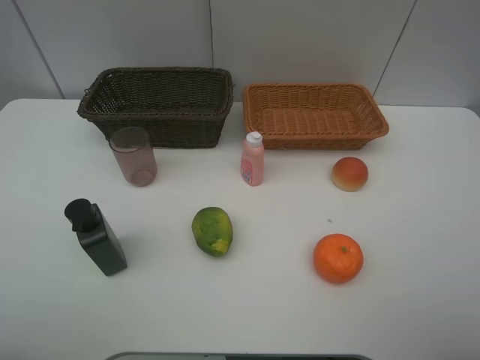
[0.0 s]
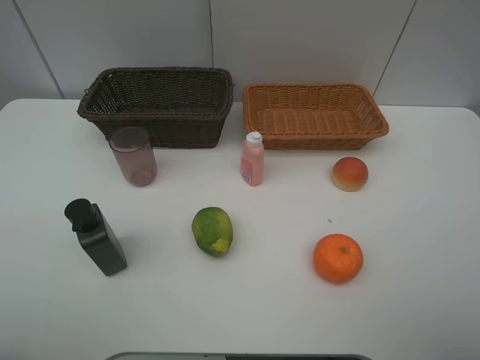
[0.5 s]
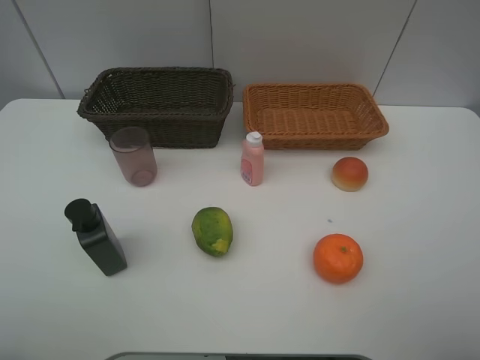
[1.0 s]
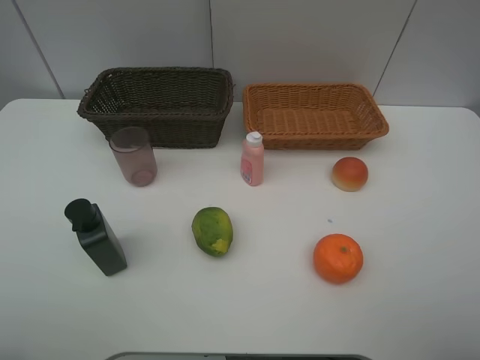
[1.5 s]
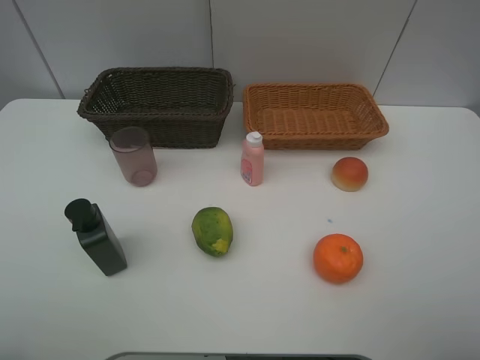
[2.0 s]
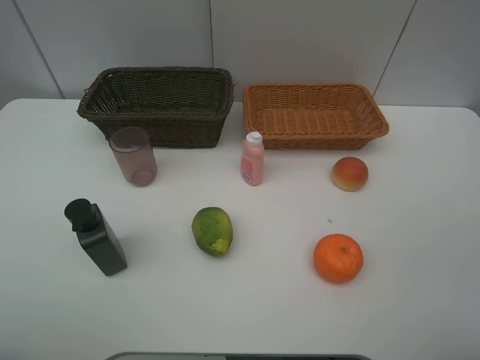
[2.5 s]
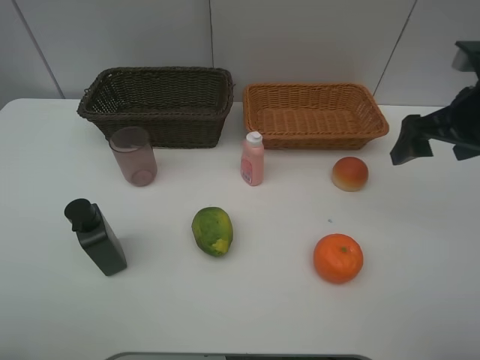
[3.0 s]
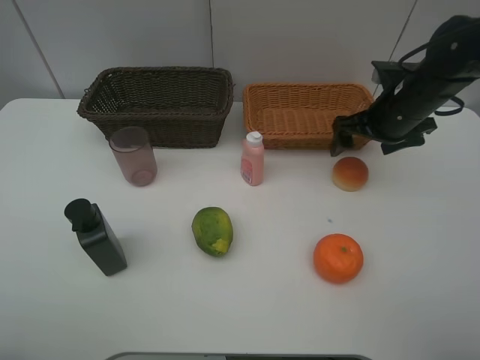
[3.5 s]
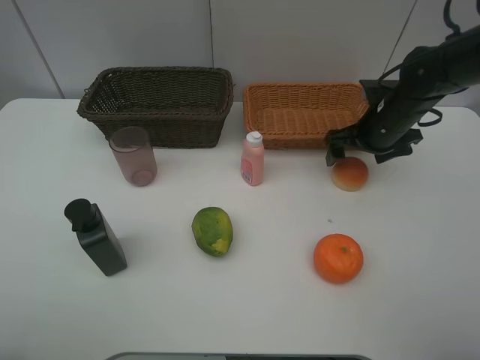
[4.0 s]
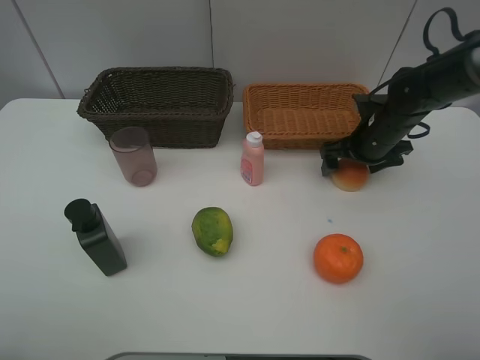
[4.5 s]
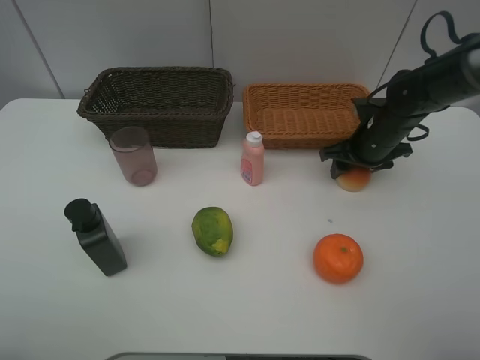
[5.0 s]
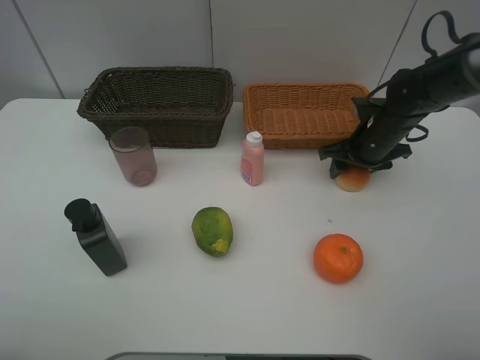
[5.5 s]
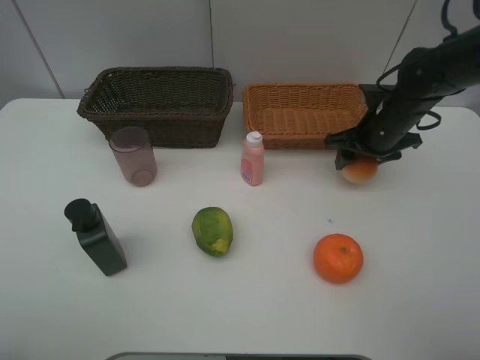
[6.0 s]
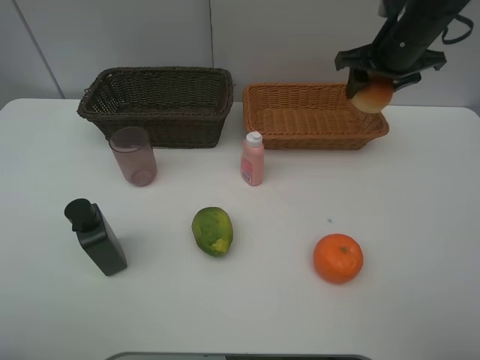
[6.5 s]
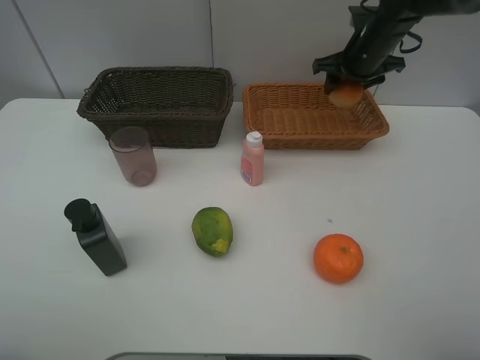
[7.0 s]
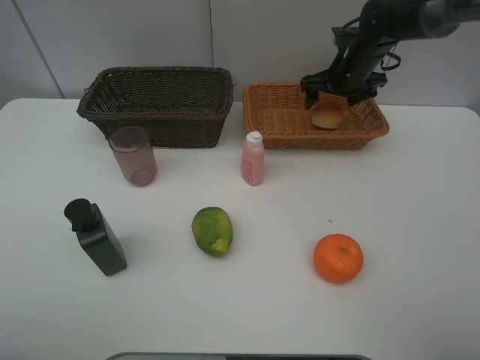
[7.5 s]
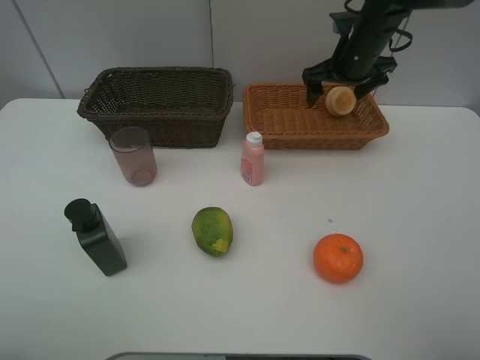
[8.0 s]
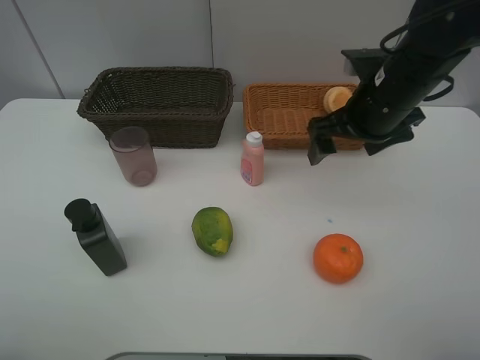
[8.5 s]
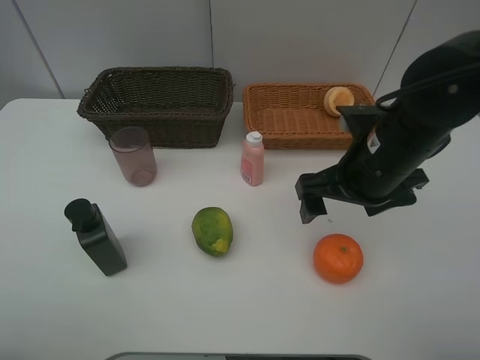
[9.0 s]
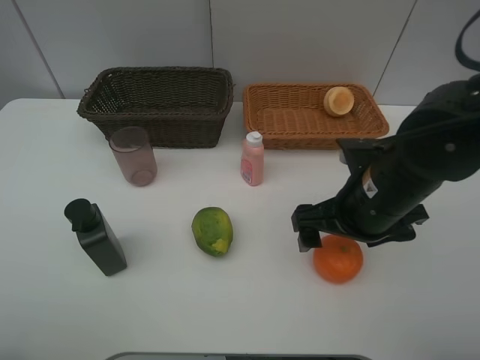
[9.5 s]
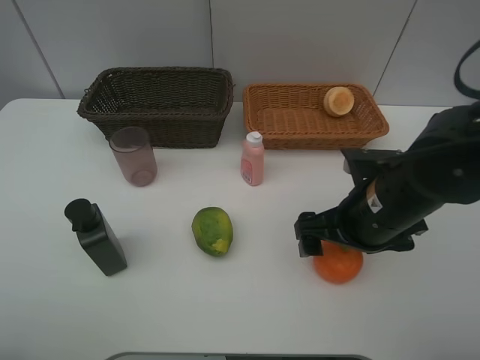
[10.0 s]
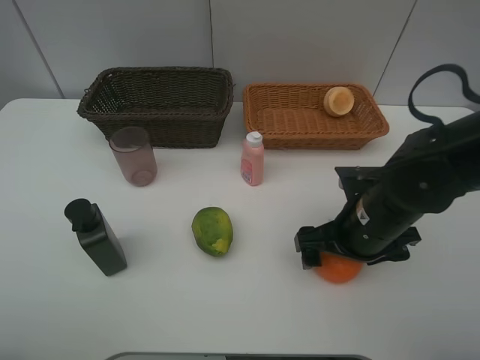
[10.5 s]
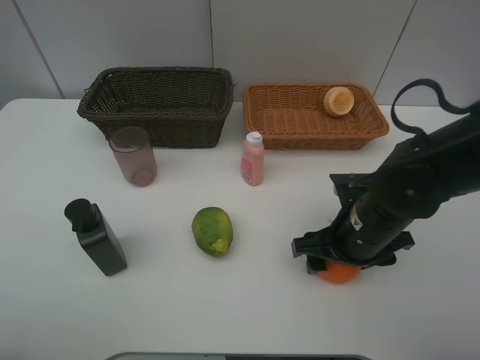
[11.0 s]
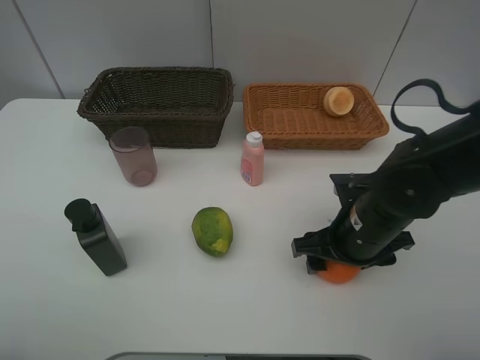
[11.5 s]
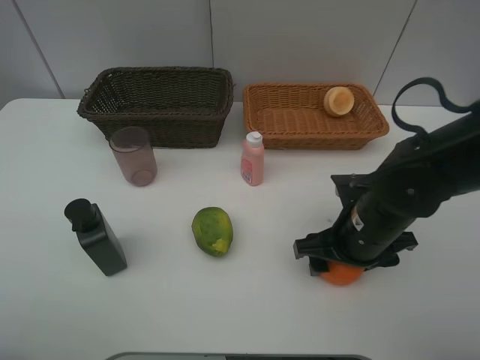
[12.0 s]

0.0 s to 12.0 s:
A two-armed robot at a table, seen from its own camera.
Task of the whole recording: place multiple objects separately in different baskets.
0.0 to 2.0 s: Both grippers stay put.
2.0 to 4.0 s: The right gripper goes approximately 40 cm forward and downward.
4.0 to 6.0 s: The right gripper closes its fingers.
6.0 to 8.0 s: The right gripper moves forward and upward, roughly 10 cm, and opens up.
8.0 to 10.0 s: The right gripper travels backward by about 25 cm.
10.0 to 12.0 s: The right gripper closes up.

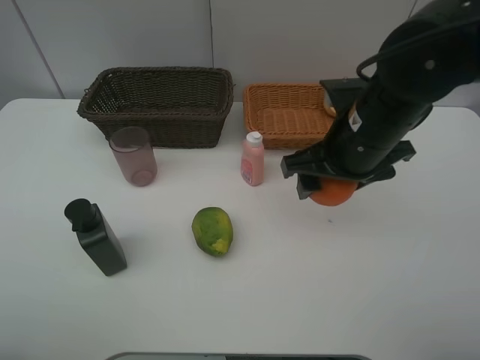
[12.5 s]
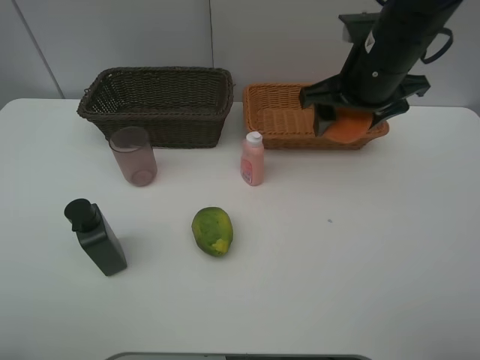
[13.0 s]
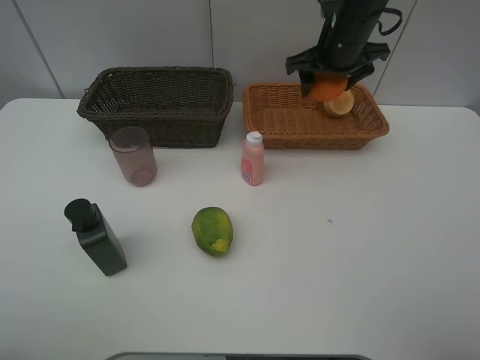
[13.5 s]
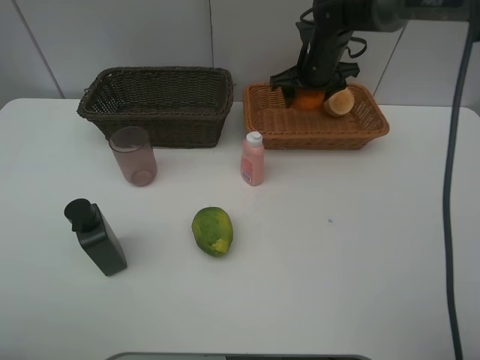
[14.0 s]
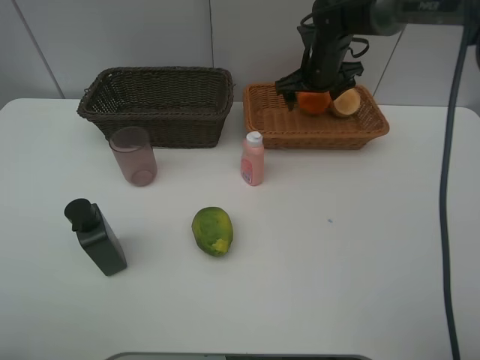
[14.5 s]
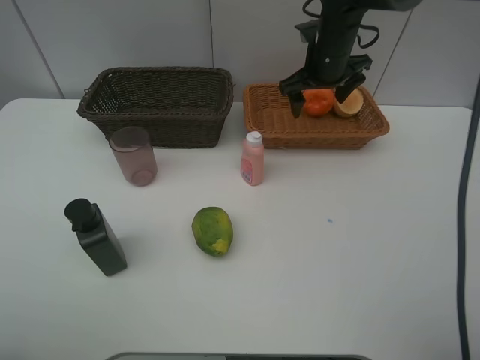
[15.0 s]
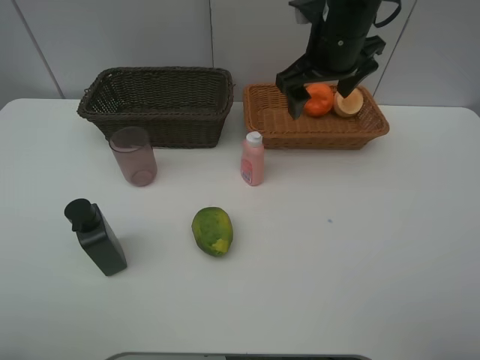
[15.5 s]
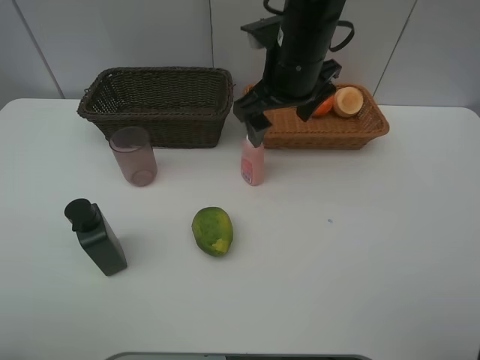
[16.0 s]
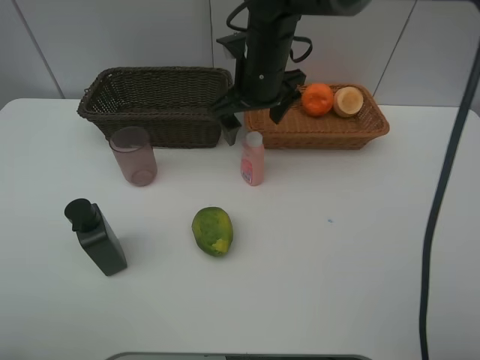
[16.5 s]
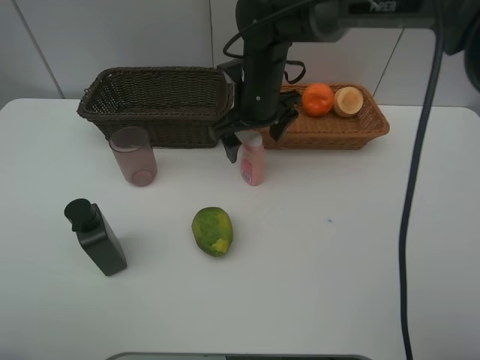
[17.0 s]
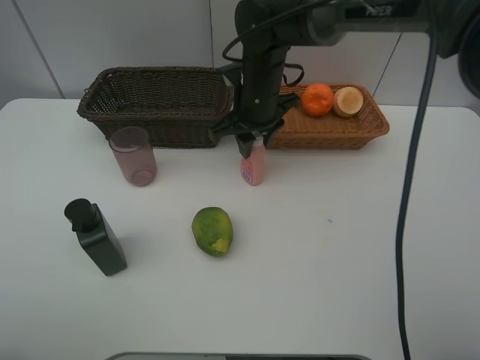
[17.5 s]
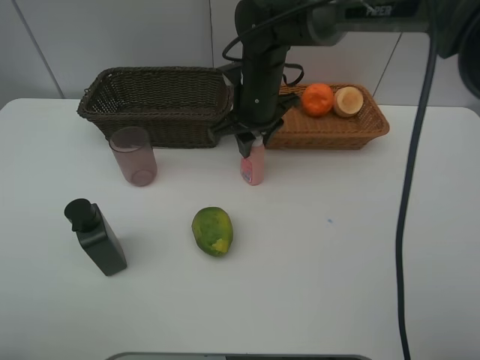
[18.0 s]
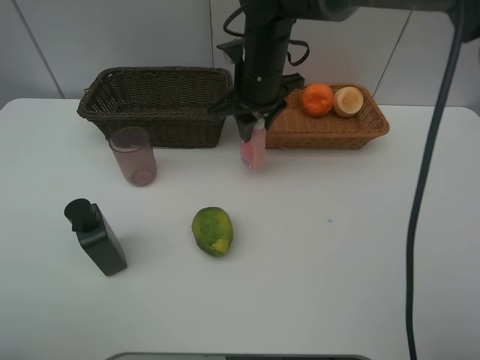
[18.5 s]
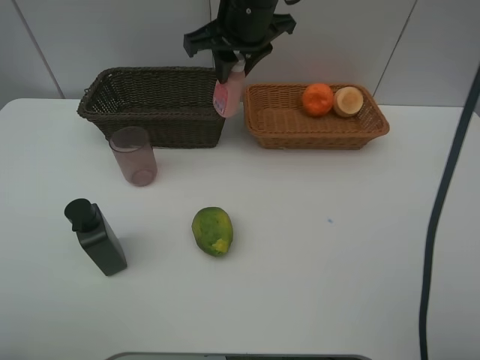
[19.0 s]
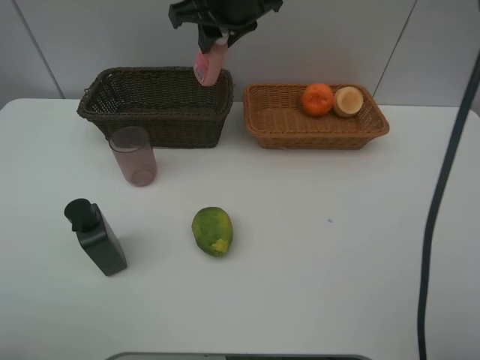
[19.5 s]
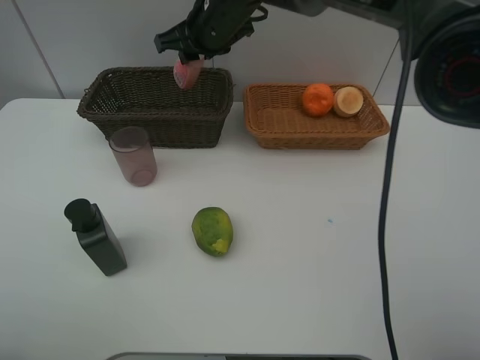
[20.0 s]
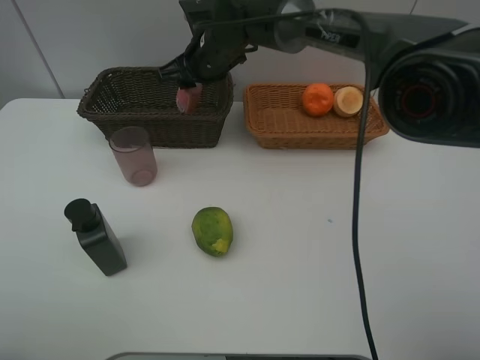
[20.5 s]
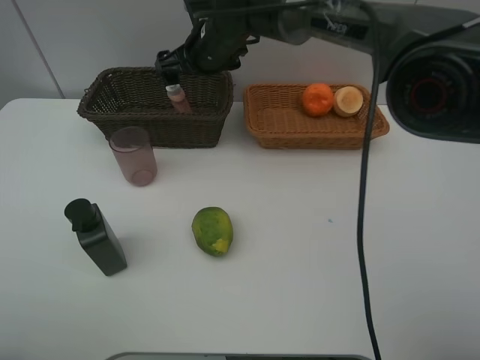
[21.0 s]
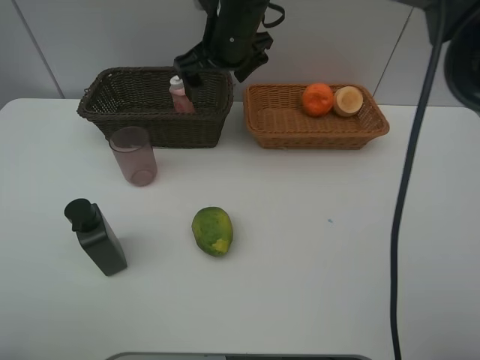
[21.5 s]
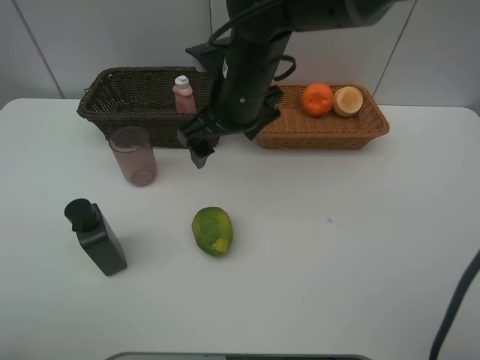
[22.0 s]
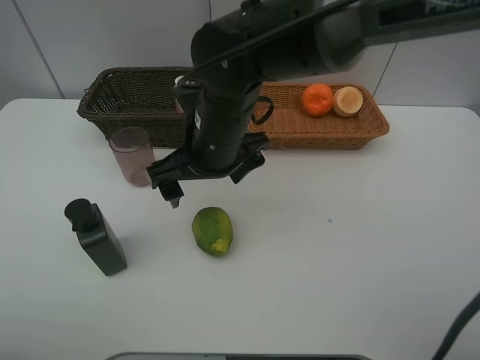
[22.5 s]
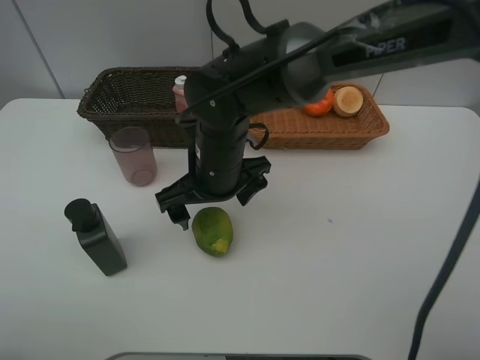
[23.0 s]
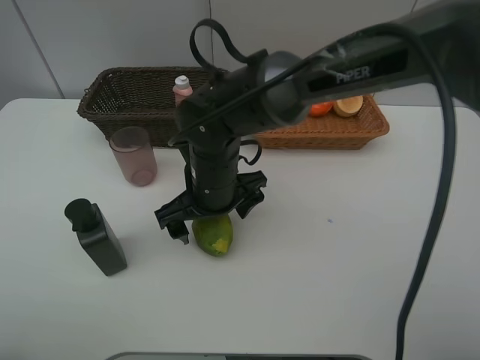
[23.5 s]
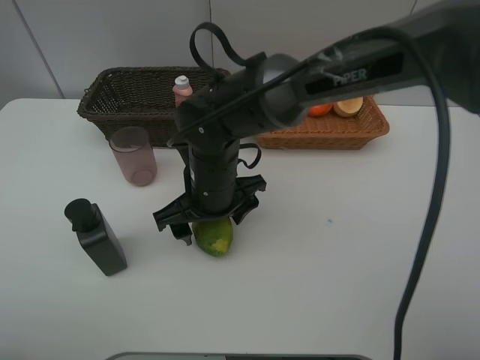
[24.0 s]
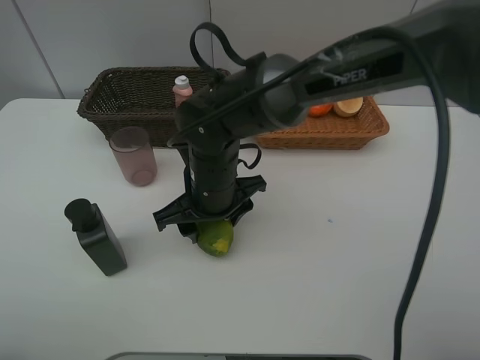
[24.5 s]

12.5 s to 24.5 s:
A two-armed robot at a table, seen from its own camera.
Task of the whole recording: place multiple objects separately in different baskets.
12.5 to 14.5 s: The right gripper shifts about 25 cm forward.
14.5 to 16.5 s: The right gripper goes approximately 15 cm to the left and backward.
16.5 to 18.5 s: The right gripper closes up.
18.5 to 20.5 s: The right gripper travels forward and to the left by about 10 cm, and reaches roughly 10 cm upward, then returns.
20.5 to 22.5 s: The right gripper heads backward, covering approximately 20 cm, and opens up.
22.5 to 24.5 s: The right gripper heads downward, covering approximately 5 cm, and closes up.

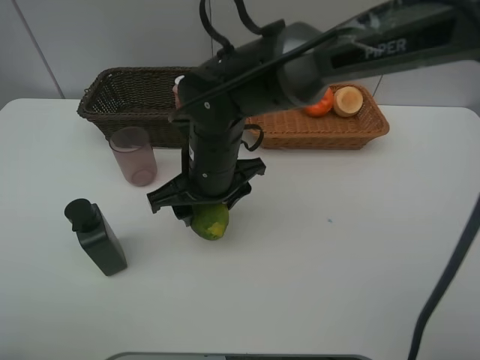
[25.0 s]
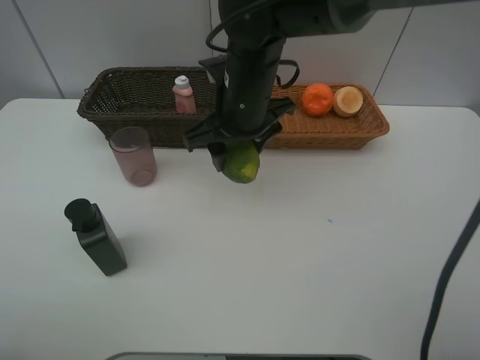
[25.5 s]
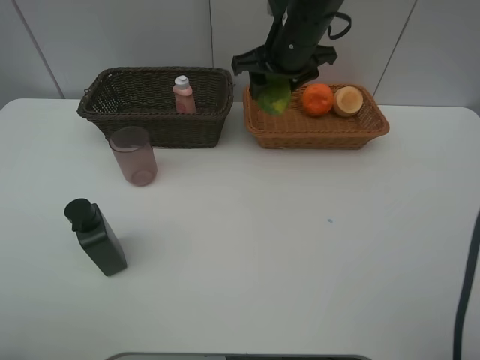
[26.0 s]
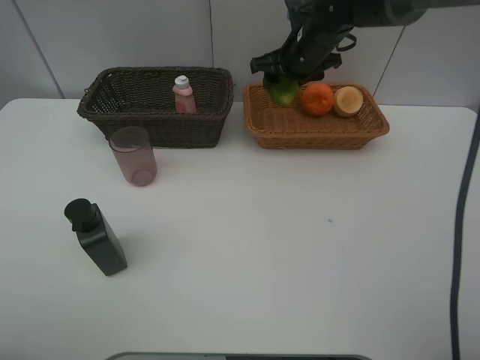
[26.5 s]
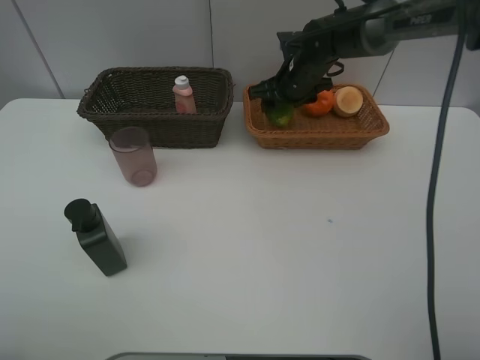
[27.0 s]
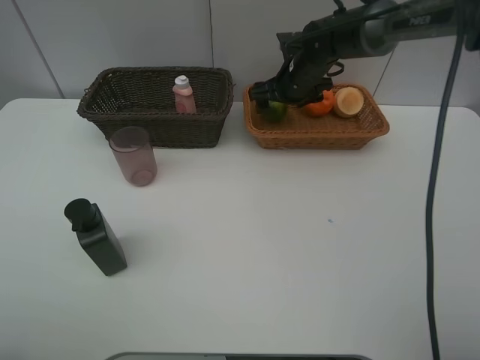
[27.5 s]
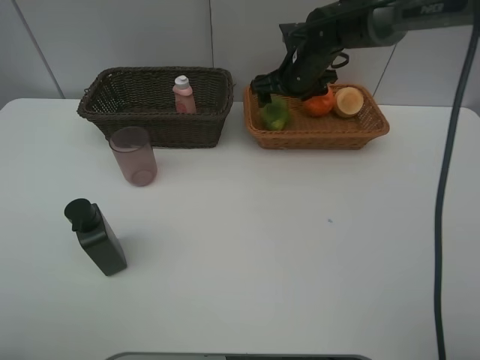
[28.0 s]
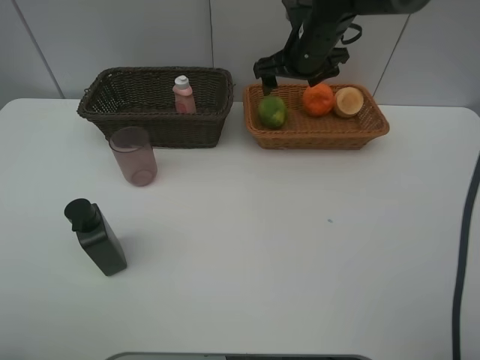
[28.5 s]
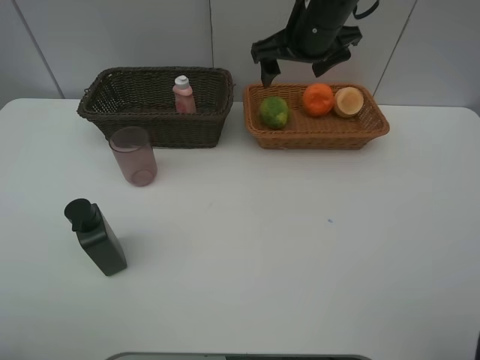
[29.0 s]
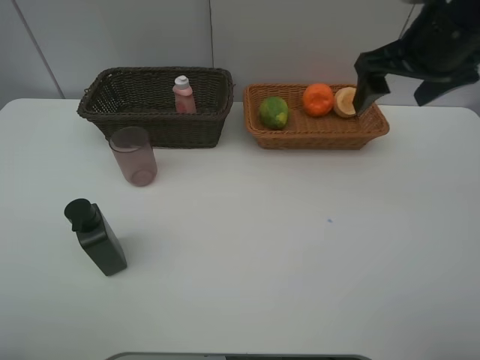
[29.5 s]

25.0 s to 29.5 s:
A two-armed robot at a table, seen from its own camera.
Task of the whole recording: place multiple objects separately in different baskets.
25.0 to 27.0 s: The right gripper shifts roughly 25 cm forward and to the right.
27.0 to 29.5 s: The right gripper is displaced backward, upward and to the right by some 25 cm, and opens its fingers.
